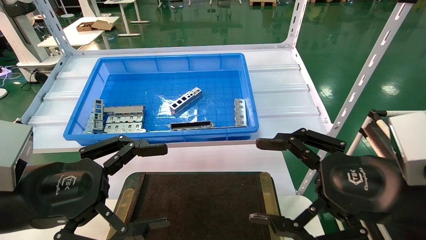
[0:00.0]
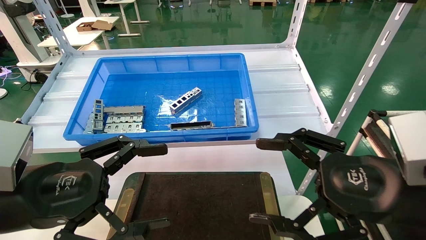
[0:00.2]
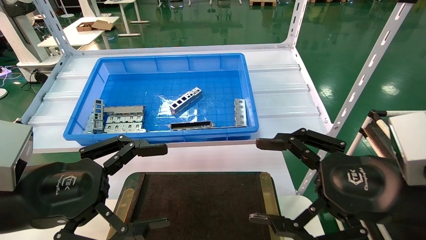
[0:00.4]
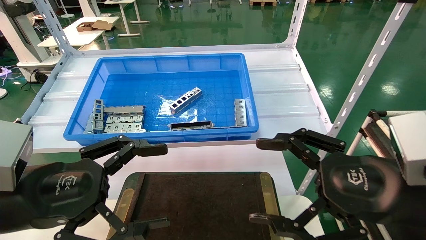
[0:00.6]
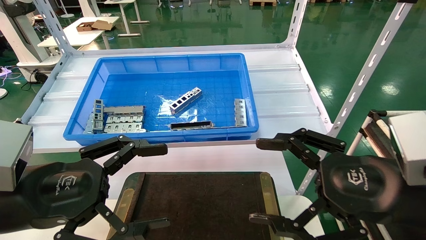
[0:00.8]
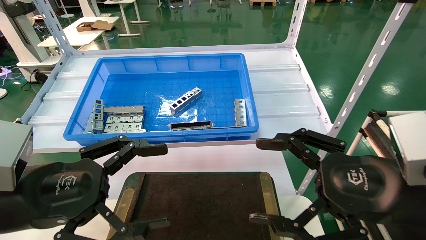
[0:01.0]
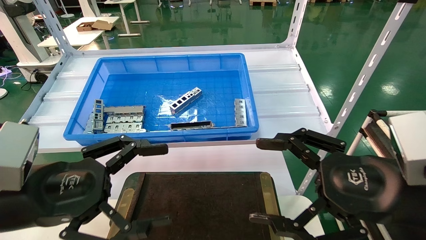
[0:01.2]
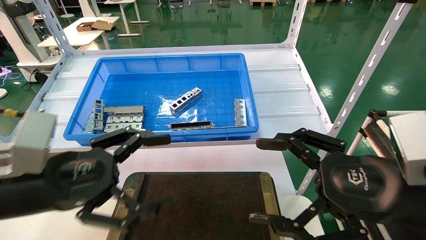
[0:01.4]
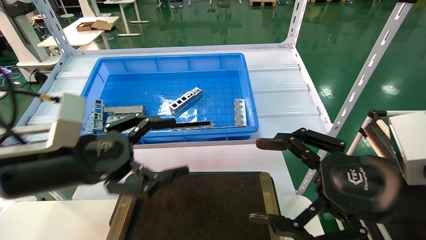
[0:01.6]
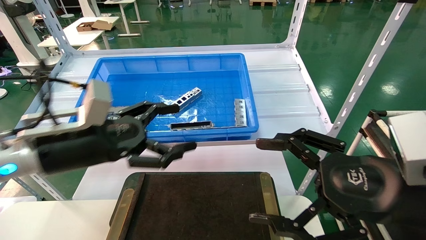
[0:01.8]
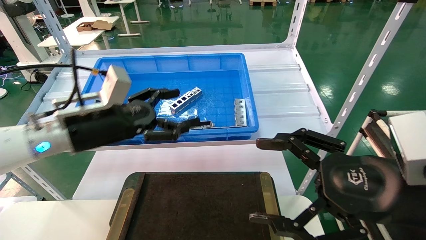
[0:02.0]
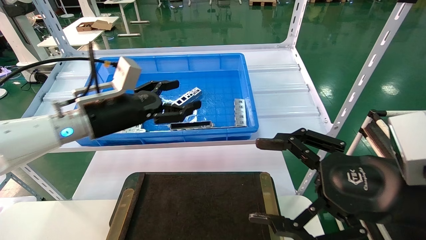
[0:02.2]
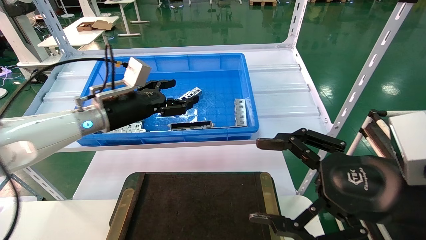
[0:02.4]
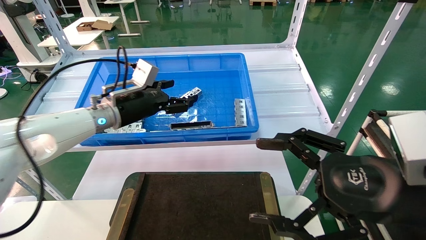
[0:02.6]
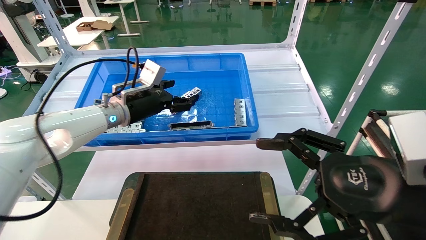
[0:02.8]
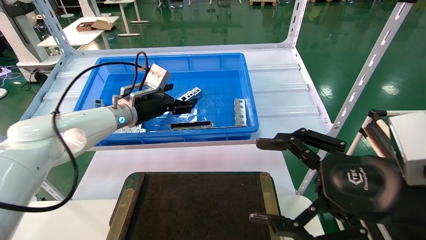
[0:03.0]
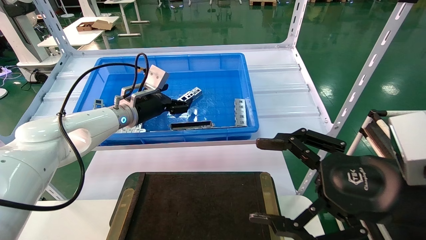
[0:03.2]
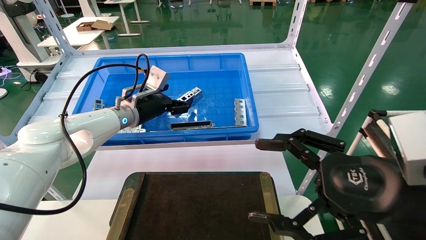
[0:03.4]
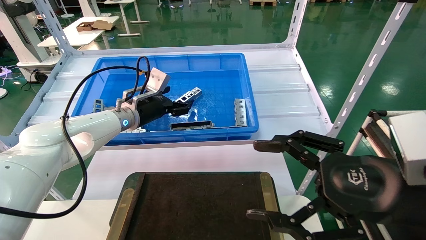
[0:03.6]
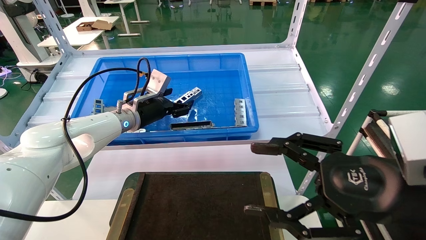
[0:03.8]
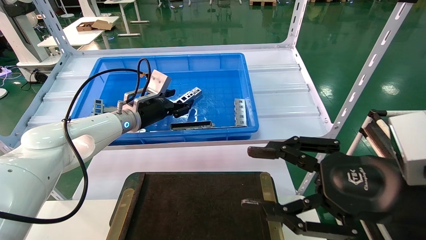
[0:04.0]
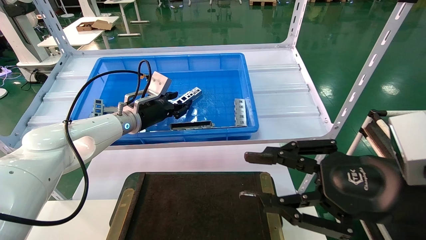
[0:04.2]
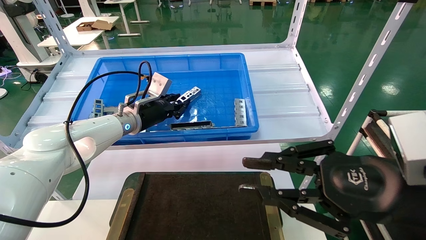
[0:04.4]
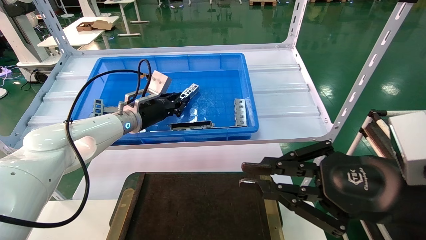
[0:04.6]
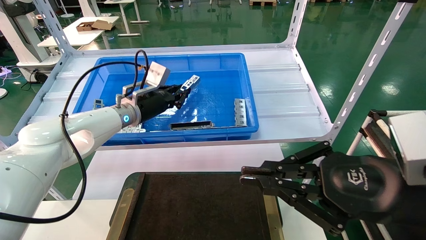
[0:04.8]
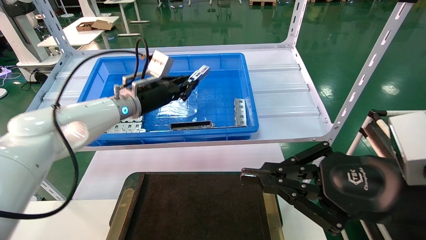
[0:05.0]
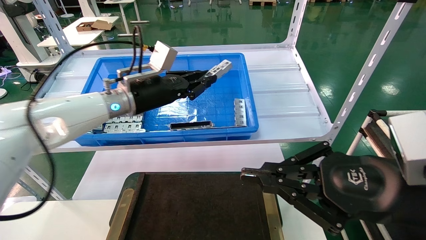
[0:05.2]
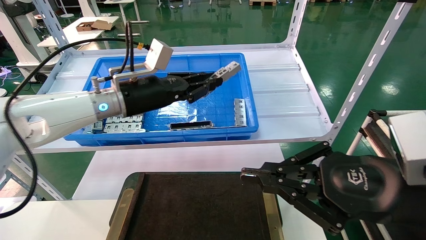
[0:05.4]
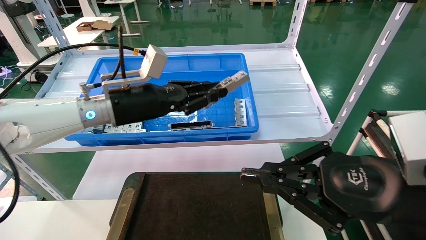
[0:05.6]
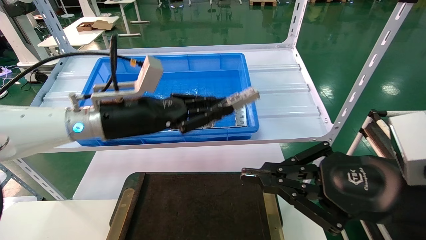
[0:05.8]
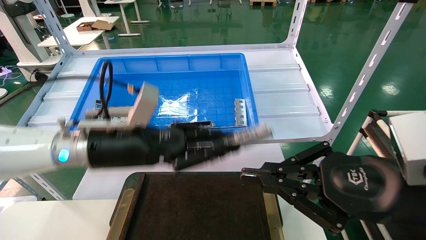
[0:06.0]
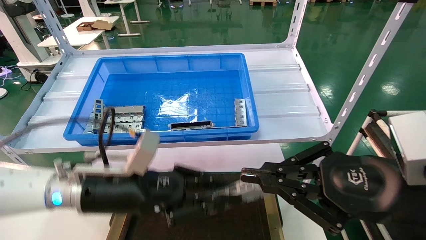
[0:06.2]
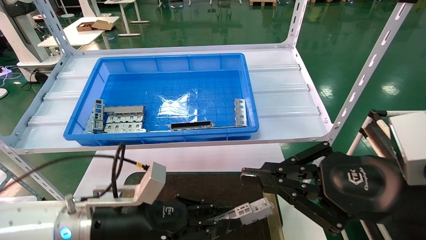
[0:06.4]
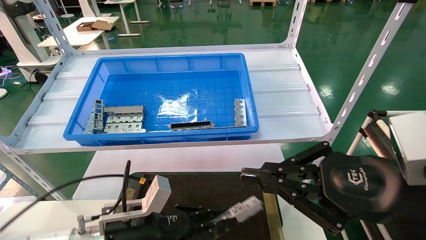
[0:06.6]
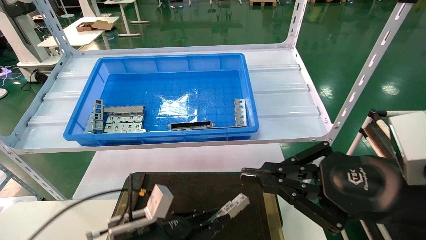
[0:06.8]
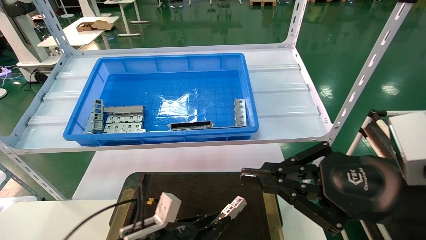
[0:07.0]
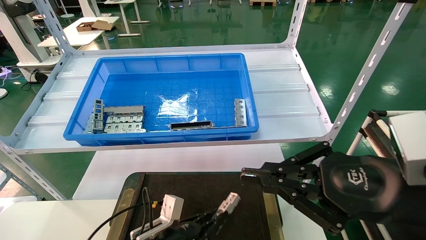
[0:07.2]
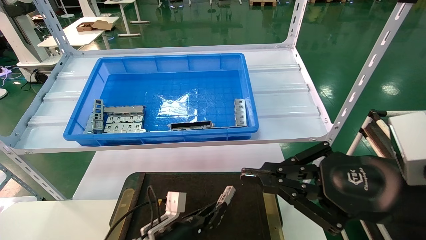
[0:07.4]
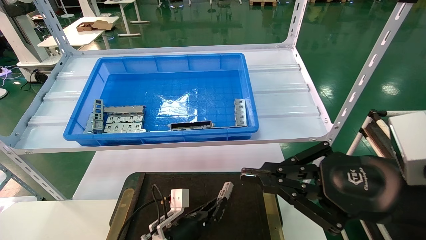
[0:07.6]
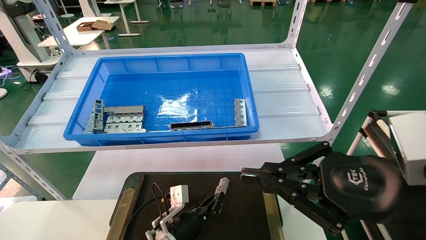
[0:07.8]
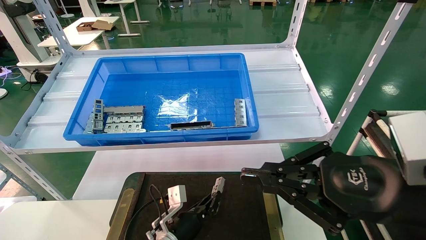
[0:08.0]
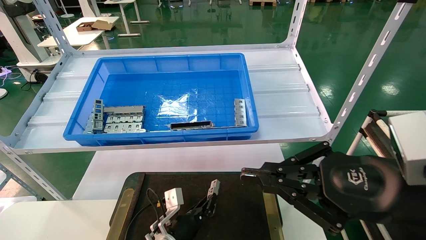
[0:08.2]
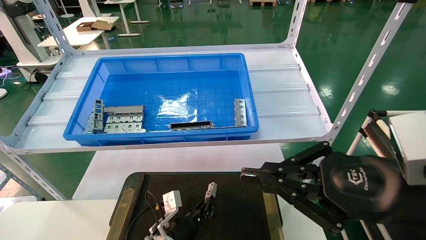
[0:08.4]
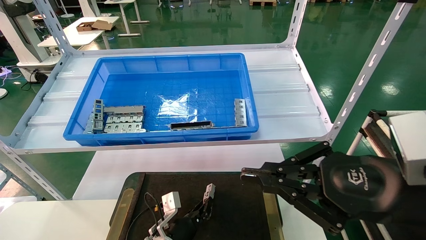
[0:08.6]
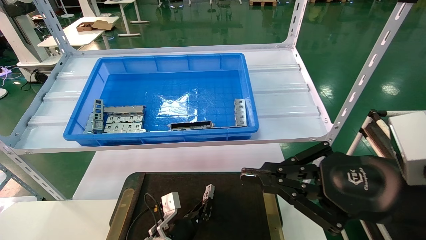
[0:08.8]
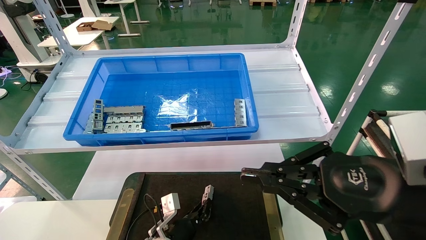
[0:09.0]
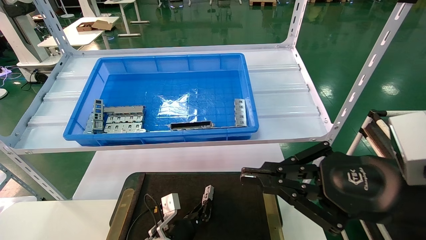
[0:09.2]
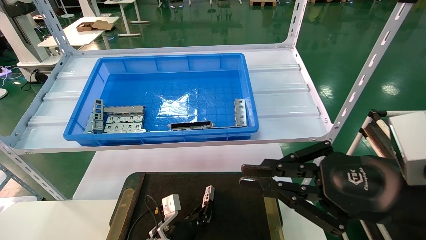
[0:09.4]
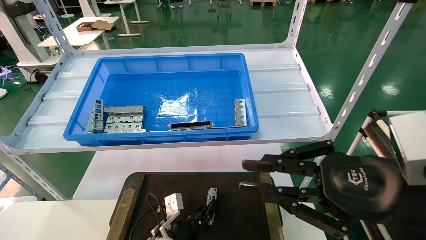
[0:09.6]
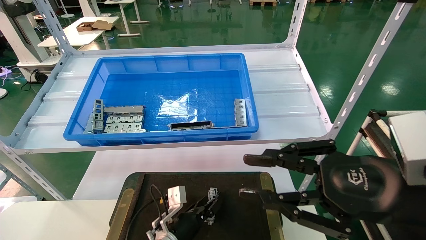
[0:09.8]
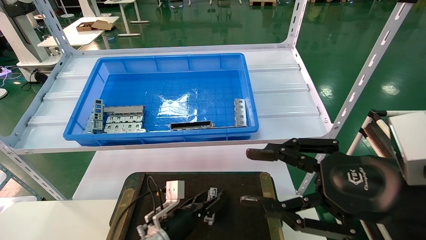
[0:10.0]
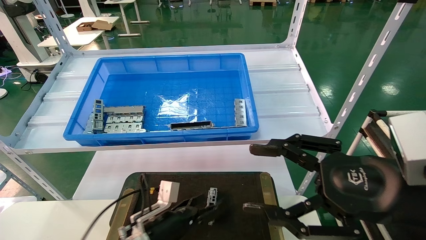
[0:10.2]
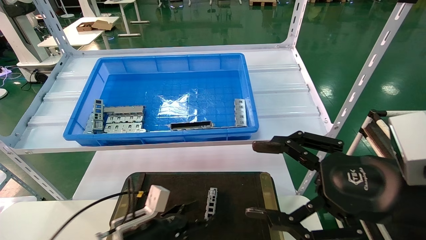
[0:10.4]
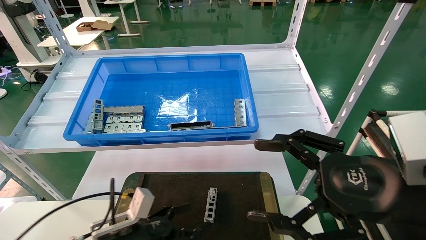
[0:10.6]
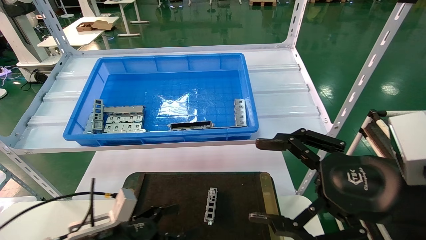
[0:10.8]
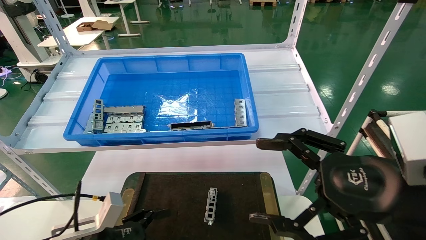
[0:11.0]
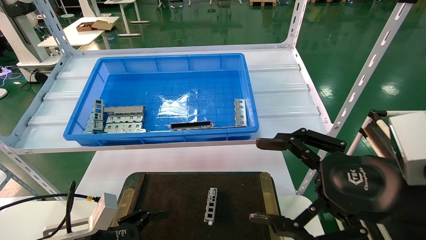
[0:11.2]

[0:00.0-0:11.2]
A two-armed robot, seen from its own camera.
Task of the whole recording: Grasp the part with one hand and place it on the black container.
Step, 1.4 to 4.6 s: Pick up the front USB bracket from the feeding area.
Step, 4.8 to 9.4 s: Place the front USB bracket into the box.
0.0 to 1.6 s: The left gripper heads forward, covering some 5 cm.
1.6 to 3.2 s: The left gripper is displaced forward by some 25 cm.
3.2 to 4.8 s: The right gripper closes up; the left gripper closes.
4.8 to 6.4 s: The left gripper heads backward and downward, covering roughly 25 cm.
6.4 to 8.0 s: The left gripper is displaced downward, forward and to the right by about 20 cm.
8.0 to 9.6 s: There are only small adjustments of the grippers.
9.6 to 11.2 s: The left gripper moves to the left, backward and upward, some 25 cm, and opens; the right gripper opens its fingers.

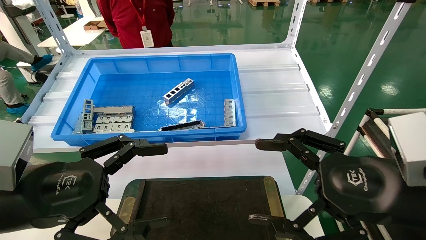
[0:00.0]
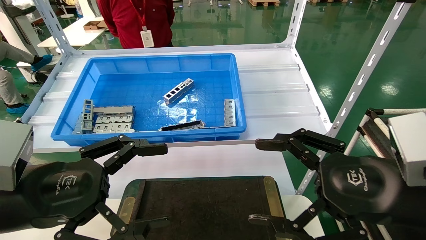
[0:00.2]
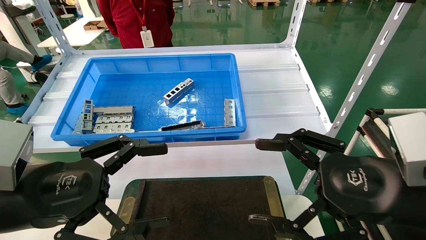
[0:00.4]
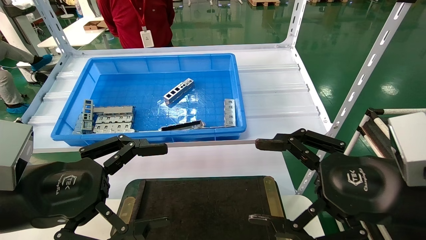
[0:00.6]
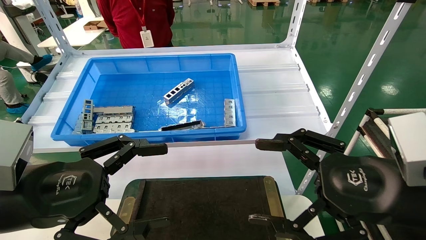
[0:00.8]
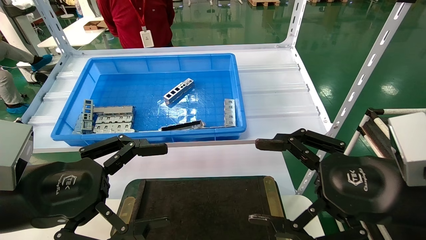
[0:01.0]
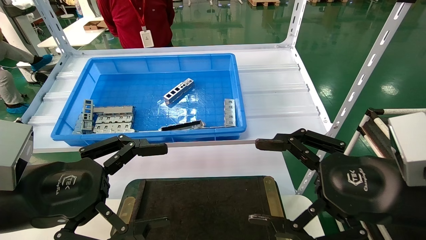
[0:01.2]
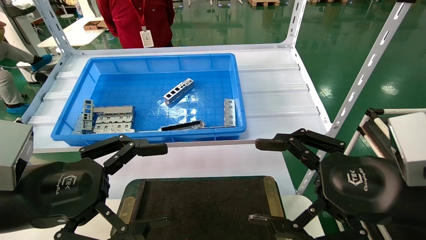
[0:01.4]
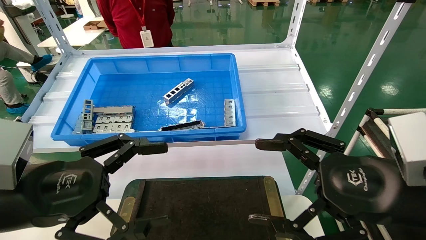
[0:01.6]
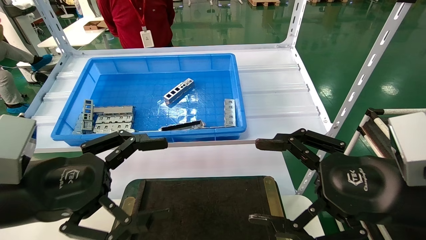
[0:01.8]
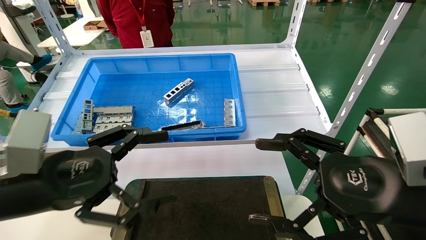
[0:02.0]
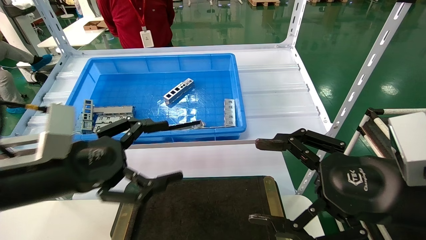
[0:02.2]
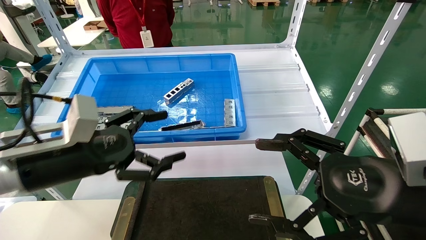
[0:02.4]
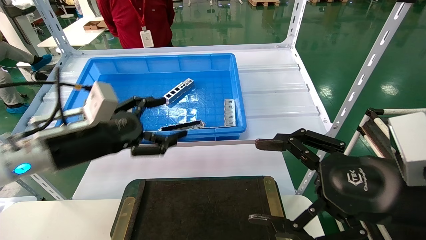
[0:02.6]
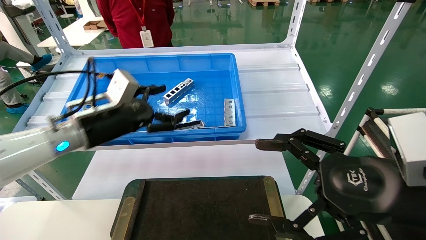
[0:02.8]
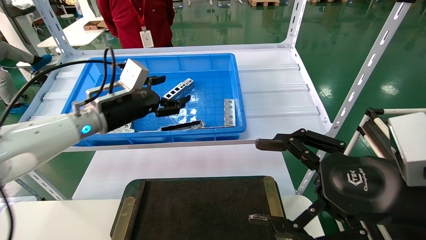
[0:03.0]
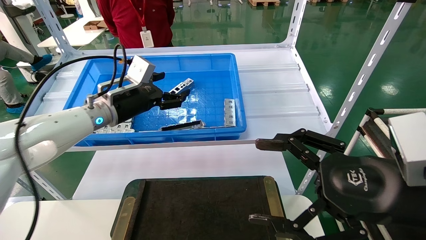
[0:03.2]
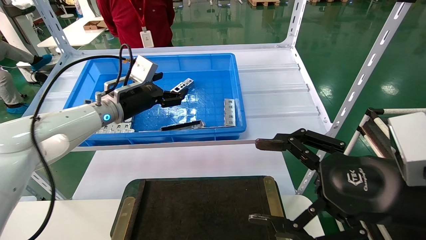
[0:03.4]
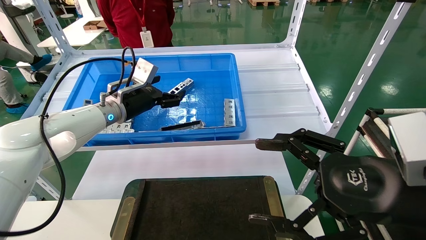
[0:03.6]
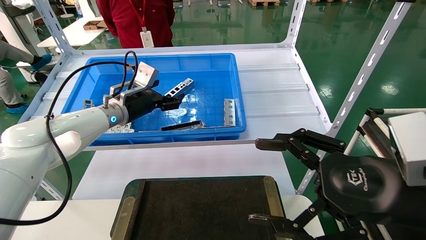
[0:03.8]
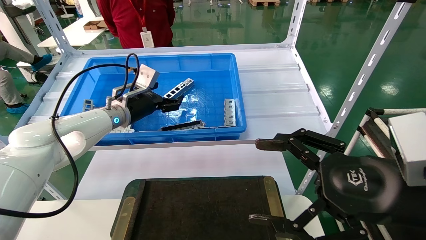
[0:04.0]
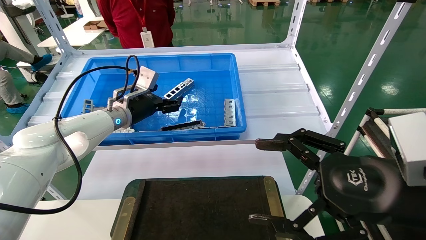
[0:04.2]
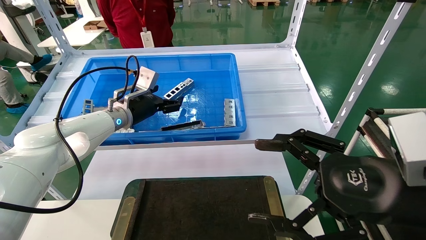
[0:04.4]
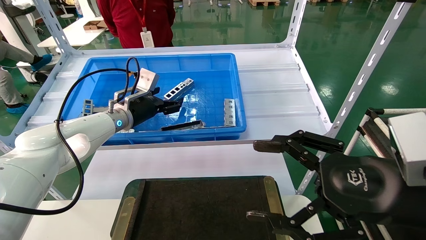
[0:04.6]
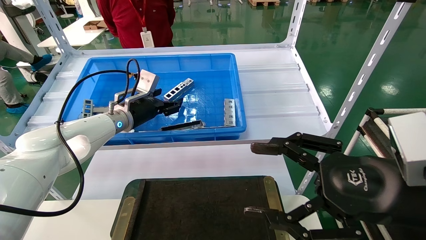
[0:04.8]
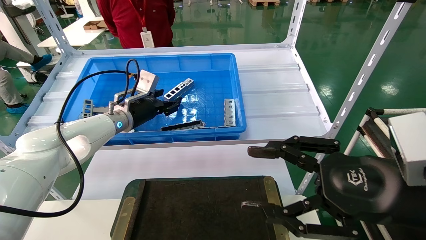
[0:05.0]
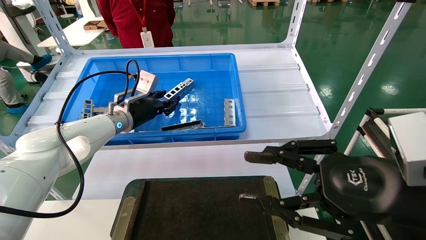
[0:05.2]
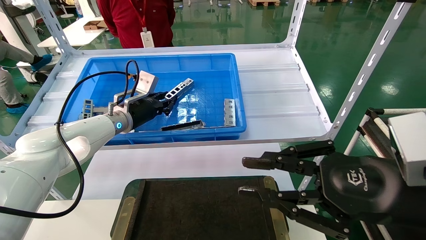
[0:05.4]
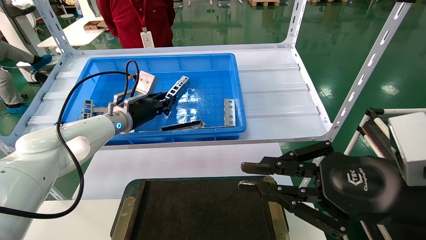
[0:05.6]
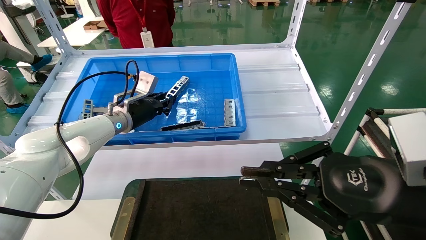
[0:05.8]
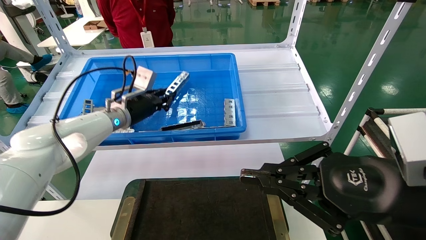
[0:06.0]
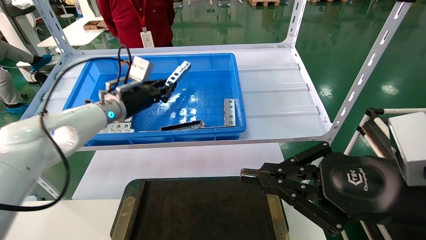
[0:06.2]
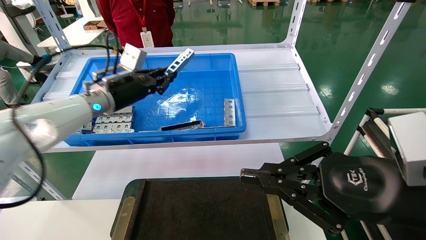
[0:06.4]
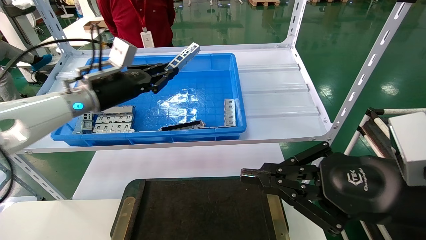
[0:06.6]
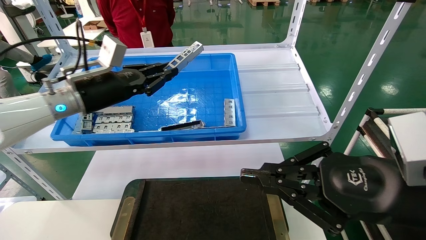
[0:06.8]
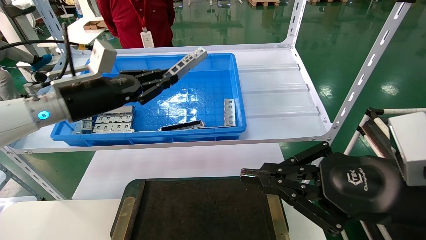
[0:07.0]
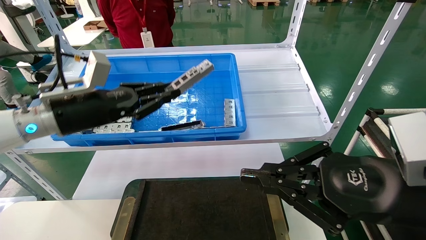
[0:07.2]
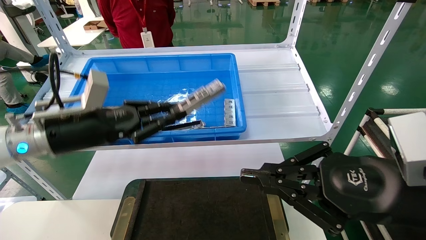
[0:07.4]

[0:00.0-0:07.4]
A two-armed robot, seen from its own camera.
Task of the whole recording: Grasp the part with one hand and place it on the black container.
Step, 2.0 to 5.4 s: Pick up the front USB bracket from the feeding area.
0.0 to 1.4 s: Neither gripper changes place.
1.4 to 3.0 s: The left gripper travels forward by some 25 cm.
3.0 to 4.4 s: The left gripper goes approximately 10 cm forward.
4.4 to 6.0 s: The right gripper closes up. The left gripper closes its fingers.
6.0 to 7.4 s: The left gripper moves backward, approximately 15 cm.
